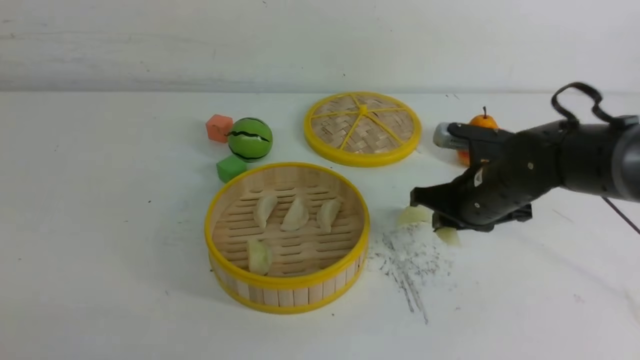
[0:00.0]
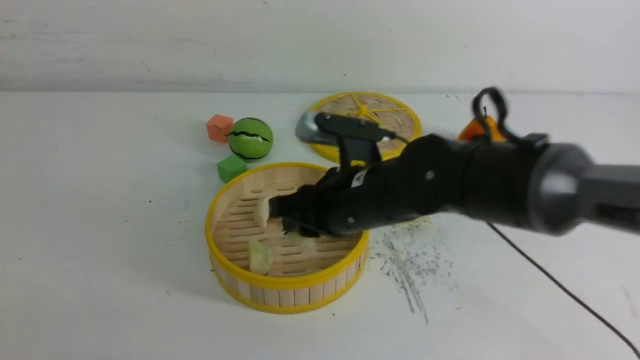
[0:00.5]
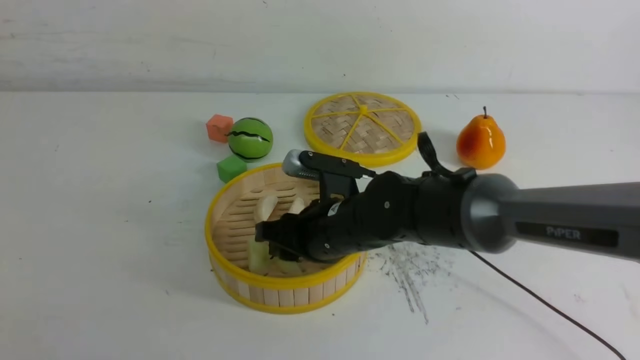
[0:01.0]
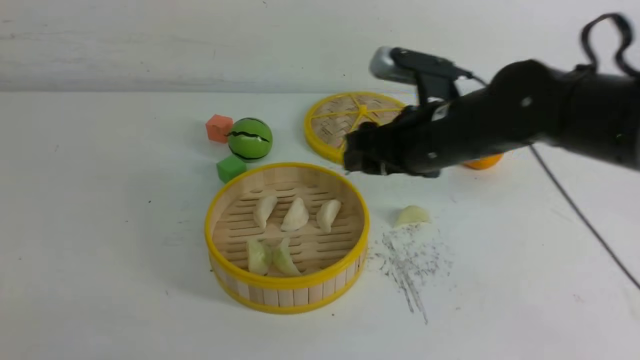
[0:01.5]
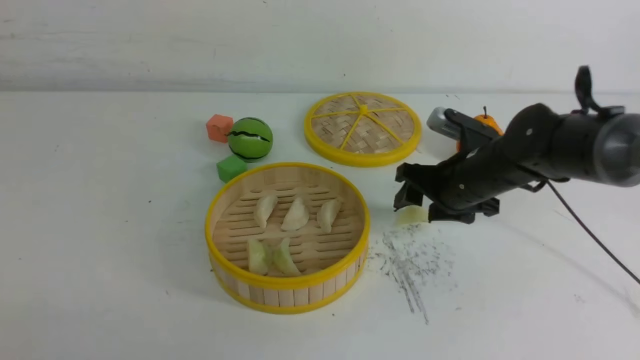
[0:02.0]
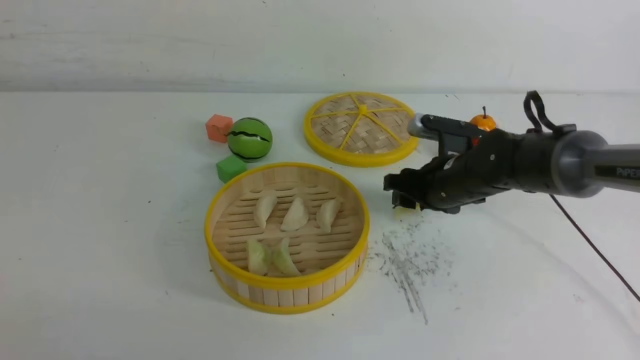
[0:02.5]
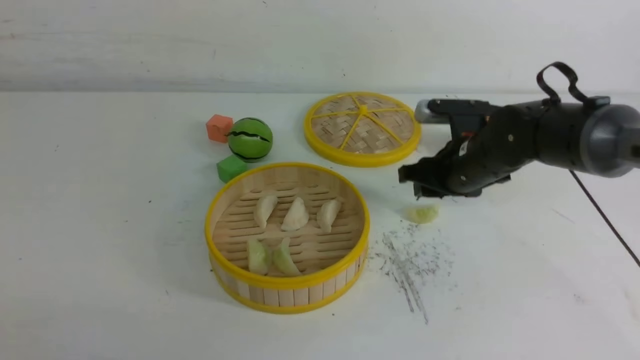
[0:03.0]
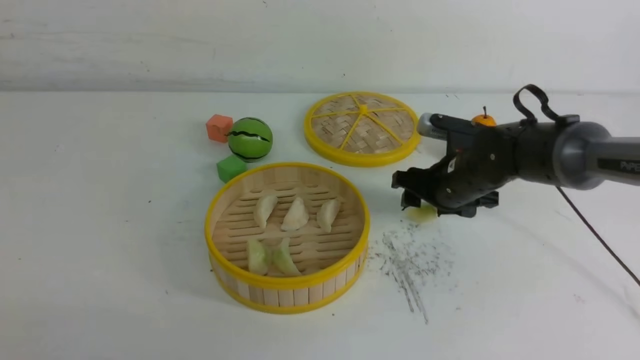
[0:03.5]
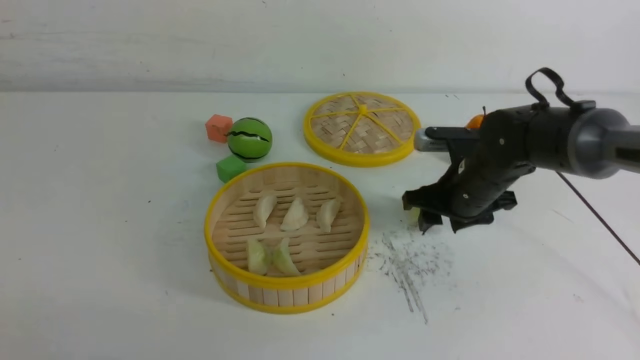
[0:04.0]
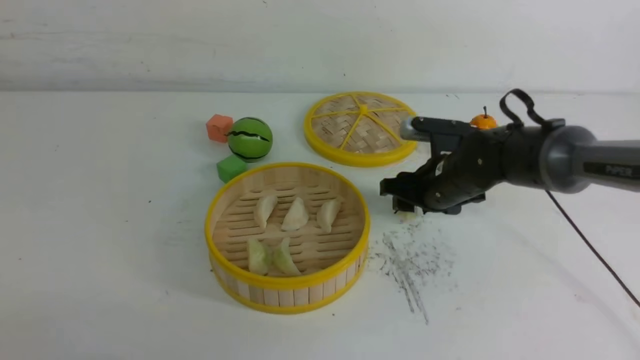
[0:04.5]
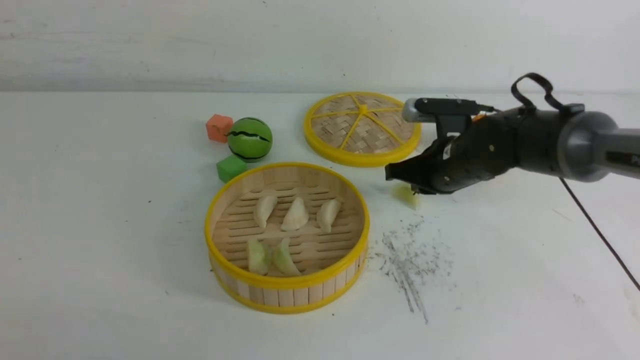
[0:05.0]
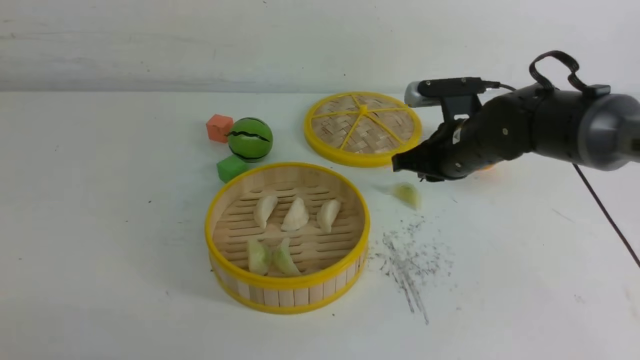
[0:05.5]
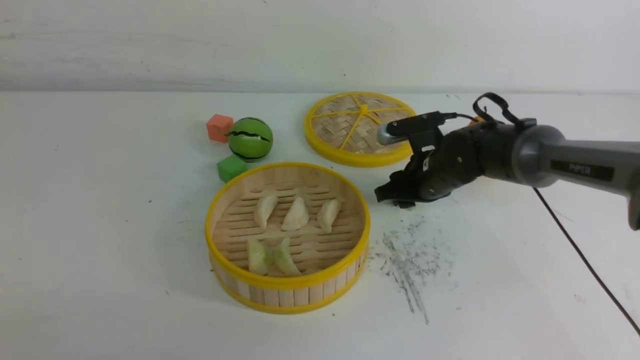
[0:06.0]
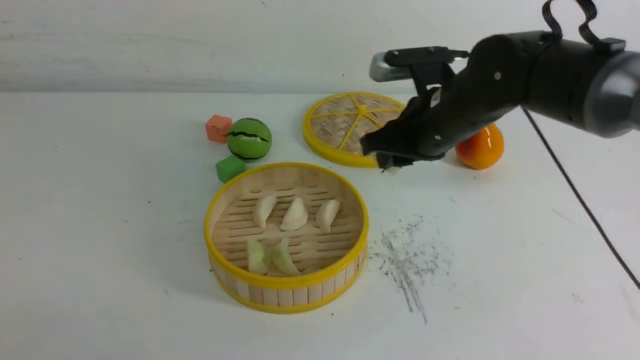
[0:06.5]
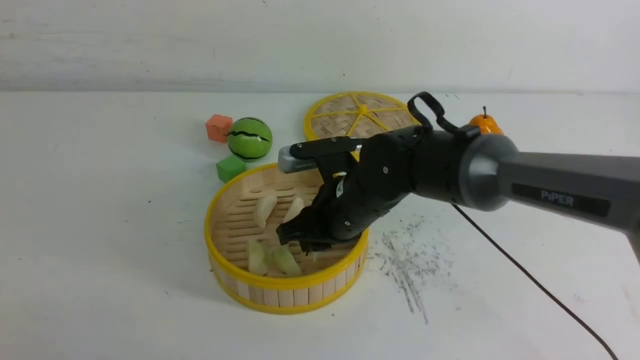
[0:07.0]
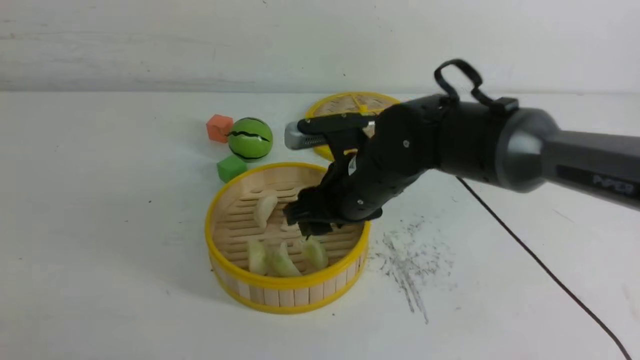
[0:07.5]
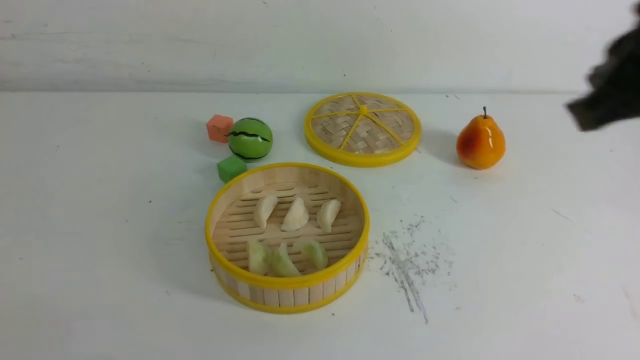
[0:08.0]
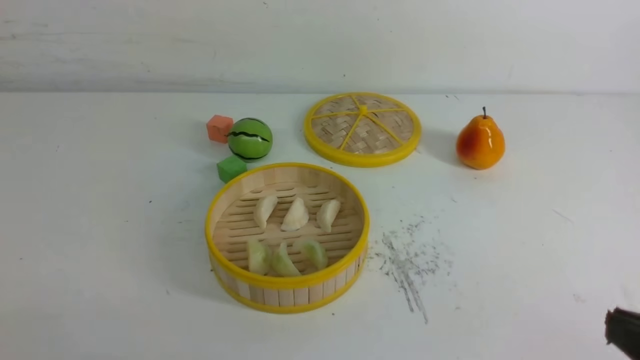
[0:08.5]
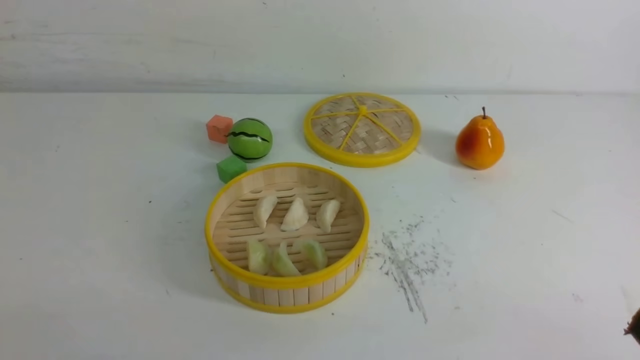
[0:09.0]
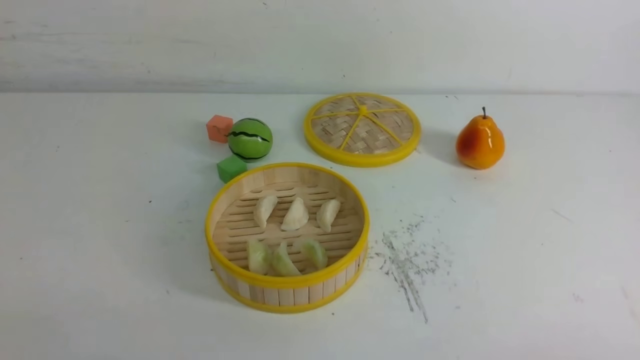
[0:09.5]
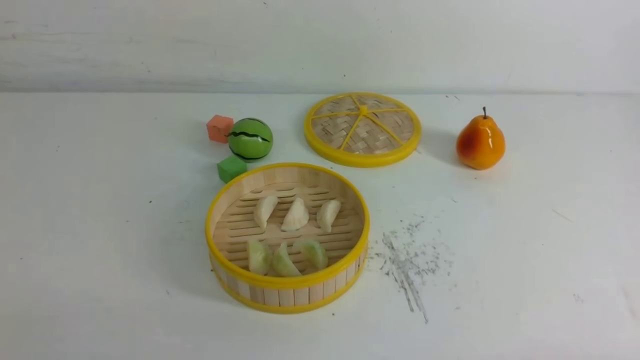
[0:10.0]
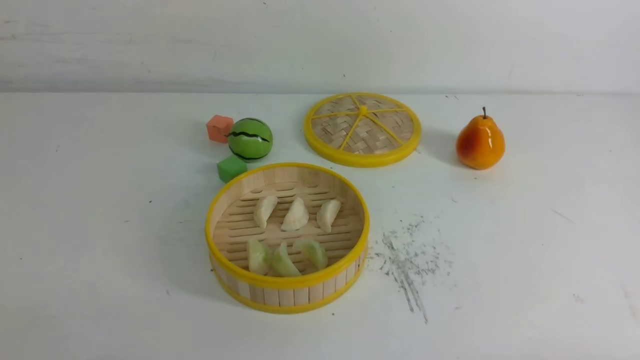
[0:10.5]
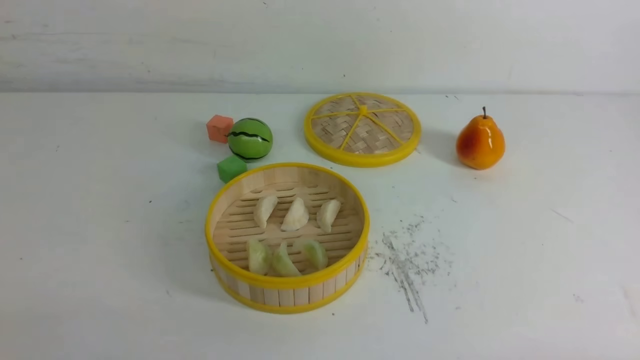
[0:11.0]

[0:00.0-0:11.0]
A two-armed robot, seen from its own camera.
Task of the whole recording: put the dumplings into the steamer on the white table.
Step, 0:00.0 to 0:01.0: use the right arm to put the dumpling into the steamer.
Step, 0:01.5 to 0:06.0: use the right arm to grab a dumpling.
Step, 0:06.5 to 0:07.0: use the right arm to put the dumpling into the steamer.
0:00.0 to 0:02.0: The right gripper reaches approximately 15 cm to the left, then returns, and opens its fingers.
0:02.0 to 0:03.5: The grippers move only a little.
0:03.5 to 0:05.5: The right gripper closes.
0:05.5 to 0:07.5: The right gripper moves to the left and backward, about 15 cm, and opens its fingers.
0:07.5 to 0:09.0: The right gripper moves backward and to the right, roughly 35 cm, and closes up.

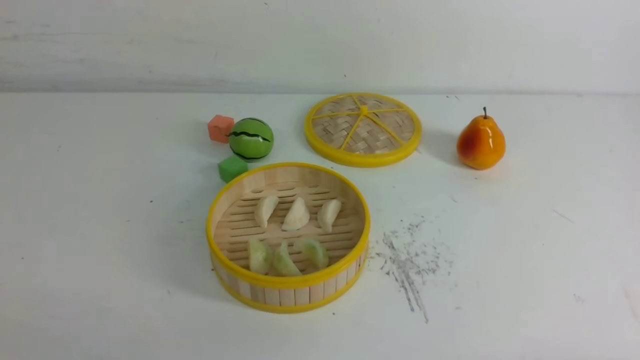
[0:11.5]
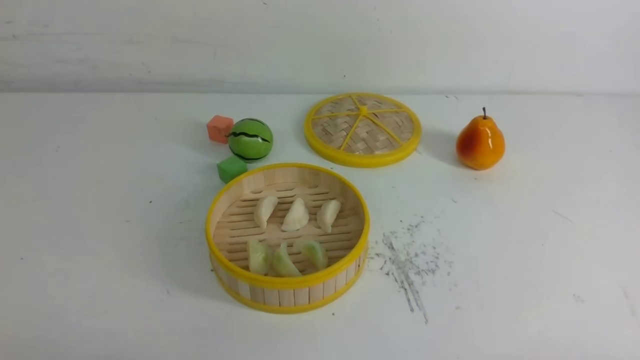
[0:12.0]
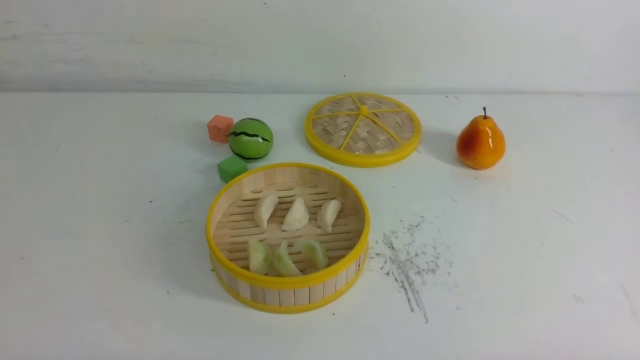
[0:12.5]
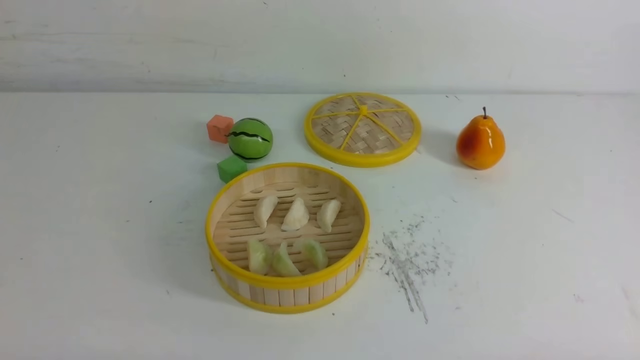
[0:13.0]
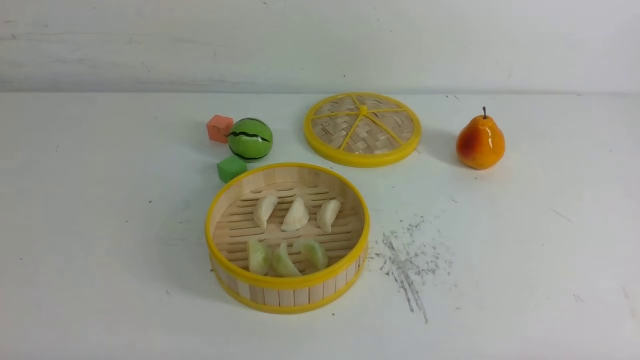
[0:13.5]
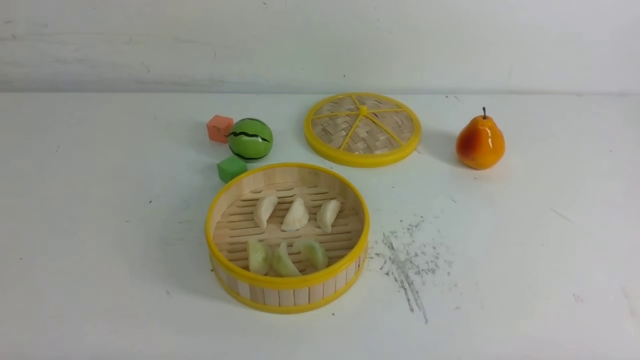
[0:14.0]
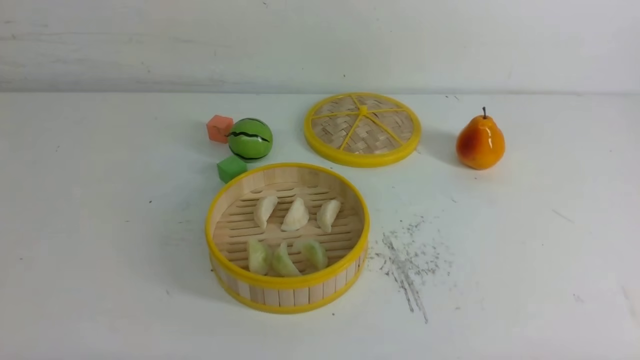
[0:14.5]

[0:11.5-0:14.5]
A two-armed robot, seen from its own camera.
Task of the whole recording: put the dumplings into the steamer on the white table.
0:13.0 to 0:14.5: Neither gripper changes place.
